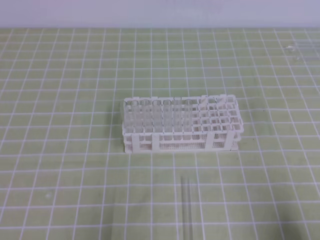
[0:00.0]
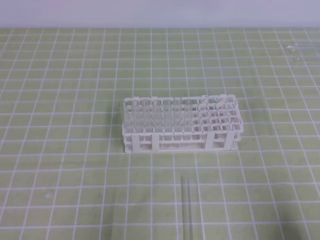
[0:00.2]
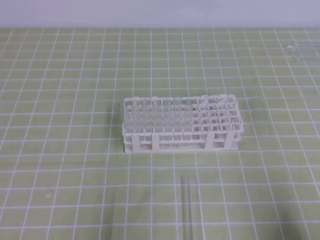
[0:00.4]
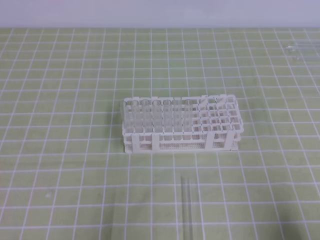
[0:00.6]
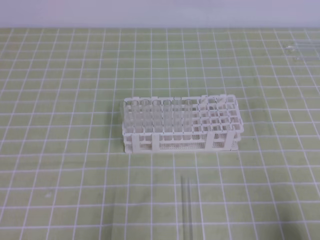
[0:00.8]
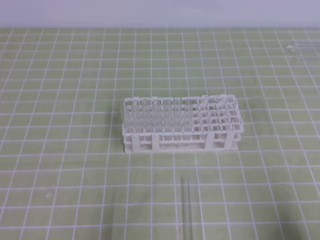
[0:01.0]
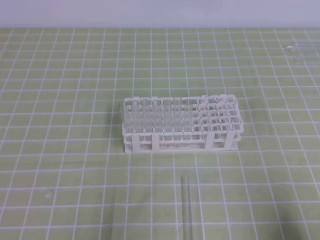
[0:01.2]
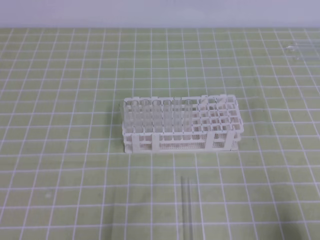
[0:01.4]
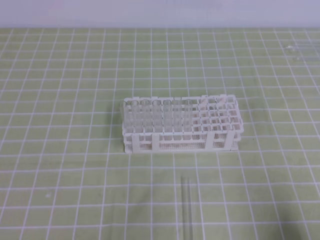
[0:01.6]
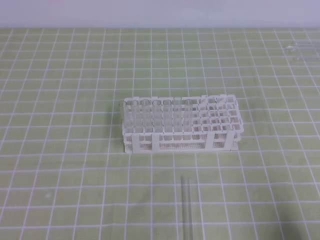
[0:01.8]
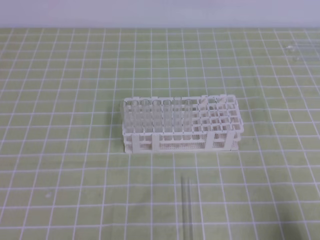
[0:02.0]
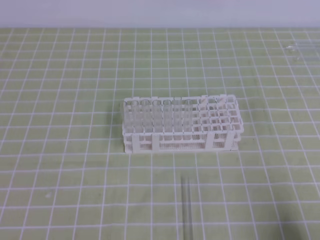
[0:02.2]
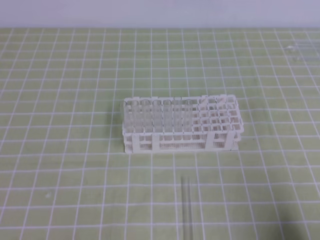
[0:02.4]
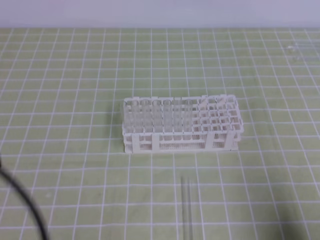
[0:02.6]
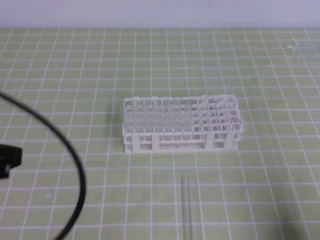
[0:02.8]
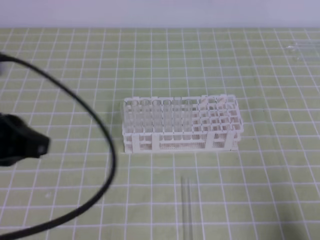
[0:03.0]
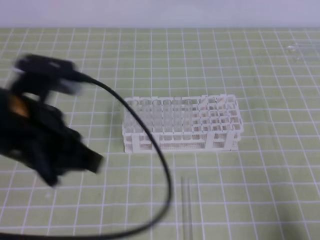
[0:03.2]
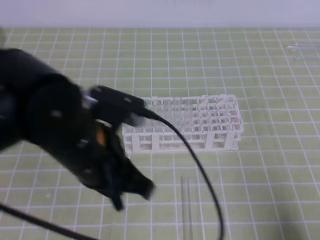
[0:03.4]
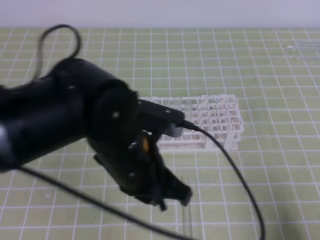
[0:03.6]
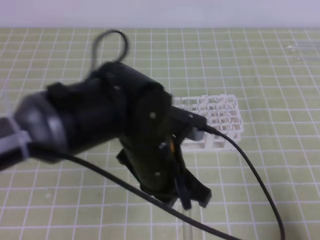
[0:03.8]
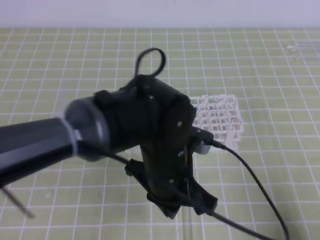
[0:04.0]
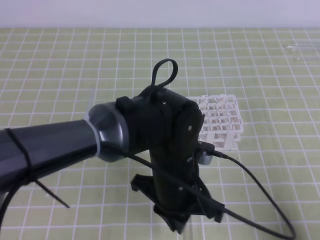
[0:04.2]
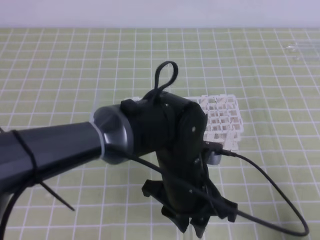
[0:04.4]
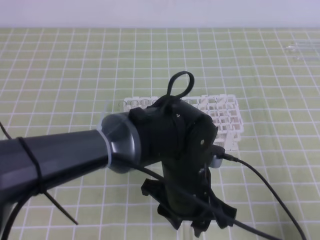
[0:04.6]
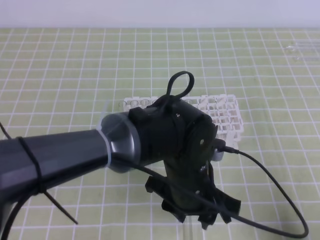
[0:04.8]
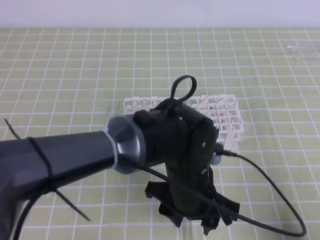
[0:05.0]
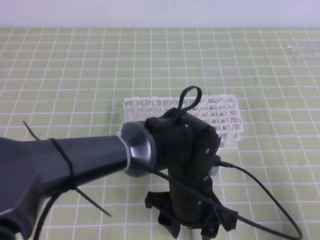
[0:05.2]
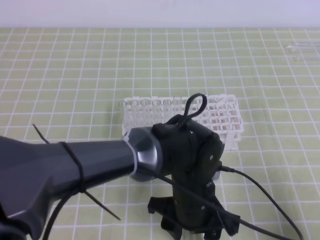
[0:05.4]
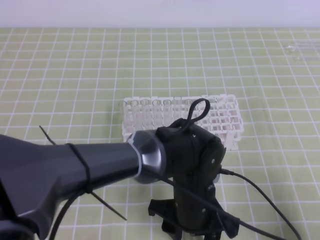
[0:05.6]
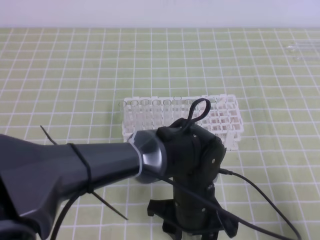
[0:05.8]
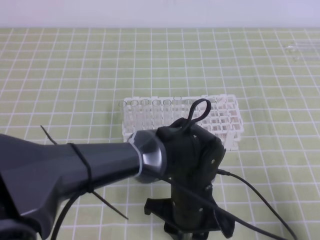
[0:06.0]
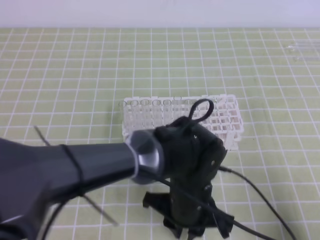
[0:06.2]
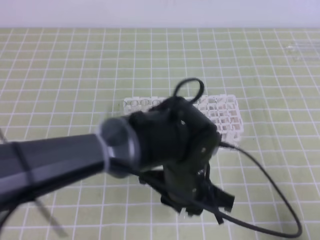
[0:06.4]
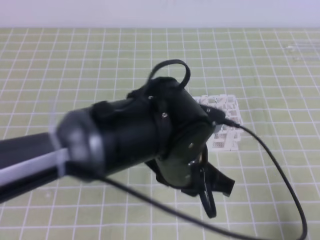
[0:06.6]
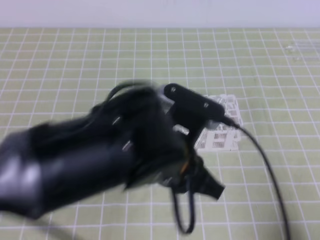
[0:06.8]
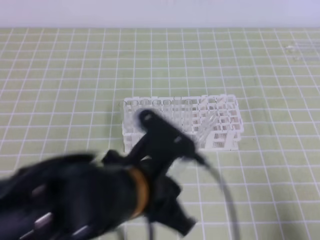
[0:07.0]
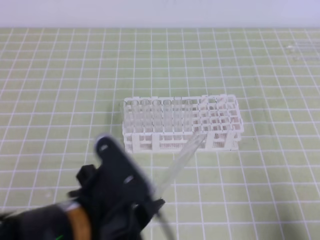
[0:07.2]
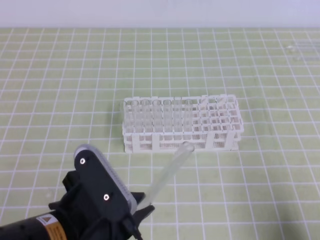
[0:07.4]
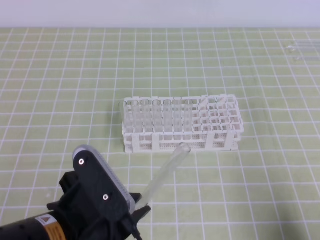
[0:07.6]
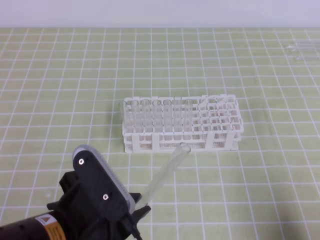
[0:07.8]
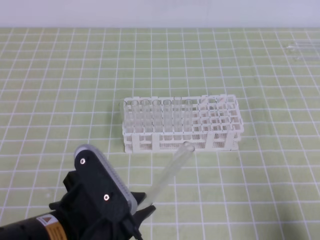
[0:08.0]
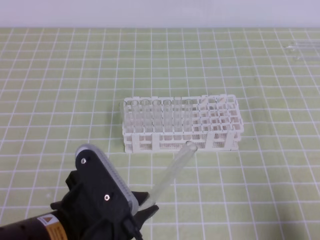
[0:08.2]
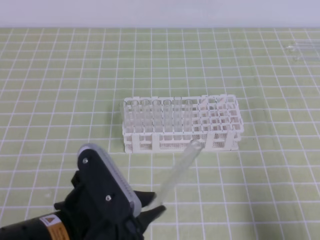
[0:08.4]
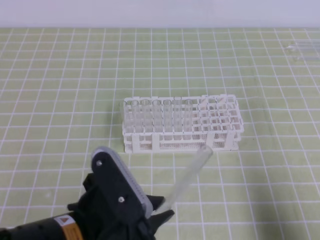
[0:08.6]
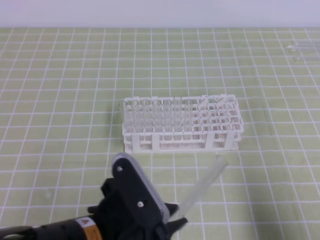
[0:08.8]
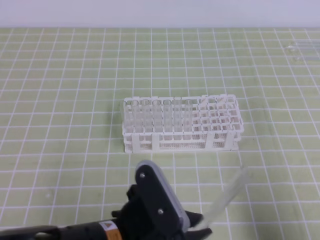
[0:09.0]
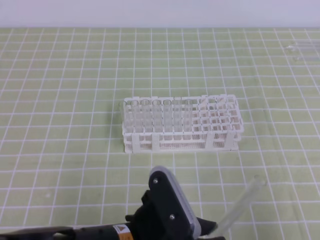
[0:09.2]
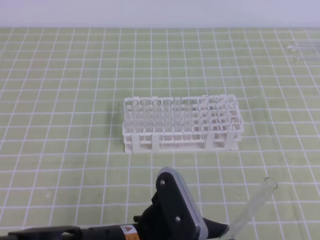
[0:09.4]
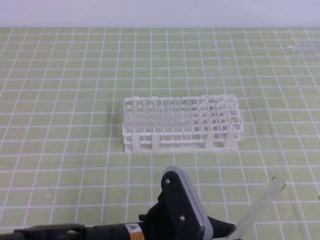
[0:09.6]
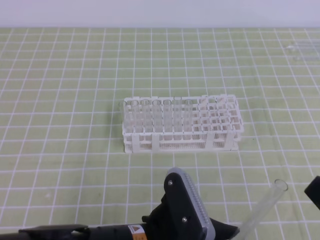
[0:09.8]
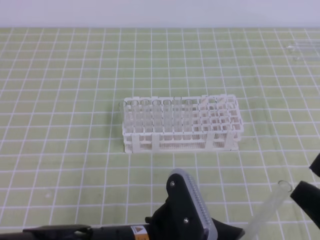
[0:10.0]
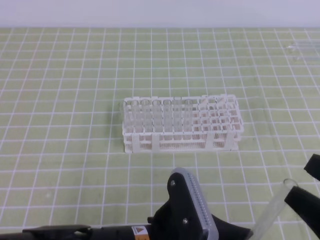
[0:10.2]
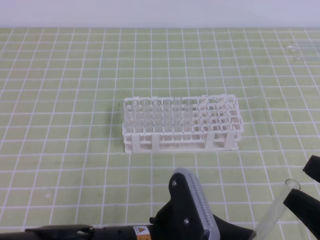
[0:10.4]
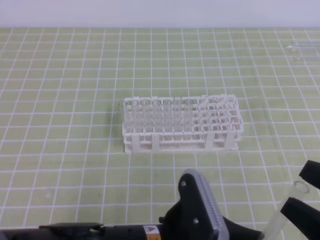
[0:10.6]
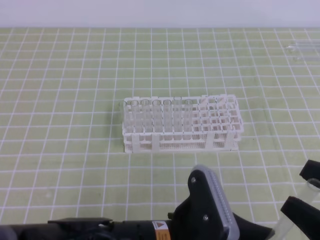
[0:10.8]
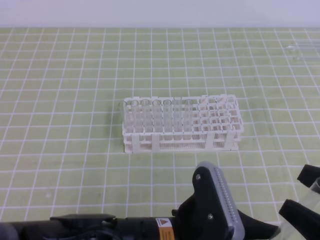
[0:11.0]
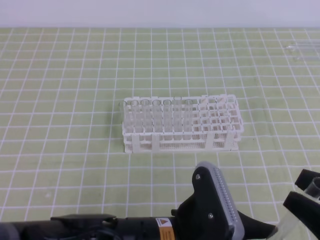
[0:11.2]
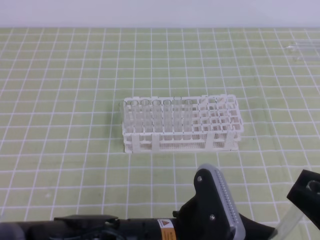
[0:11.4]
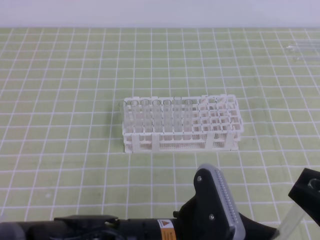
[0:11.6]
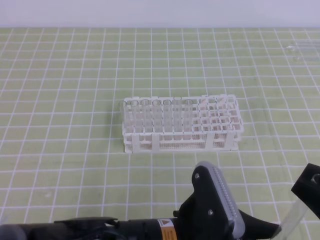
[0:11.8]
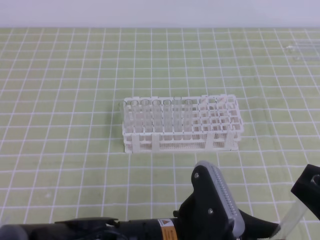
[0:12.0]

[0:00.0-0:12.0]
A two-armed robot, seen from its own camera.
0:01.6 to 0:03.0: The left gripper goes about 20 cm upward and forward.
0:03.0 to 0:04.4: The left gripper moves to the right and downward, about 30 cm.
0:04.4 to 0:06.0: The left gripper travels downward by roughly 5 cm, and opens, then closes once more.
0:06.0 to 0:07.6: The left gripper goes some 20 cm to the left, upward and backward.
0:09.0 to 0:10.4: The right gripper travels upward and to the left by some 10 cm, and opens. Meanwhile the left gripper moves roughly 5 cm.
0:10.4 to 0:12.0: The right gripper closes.

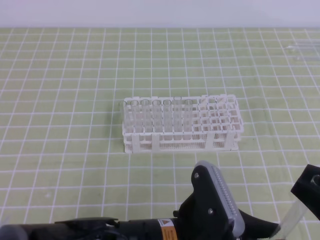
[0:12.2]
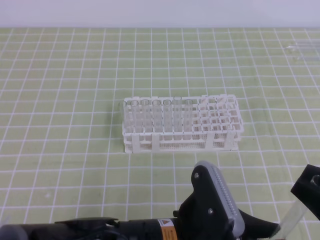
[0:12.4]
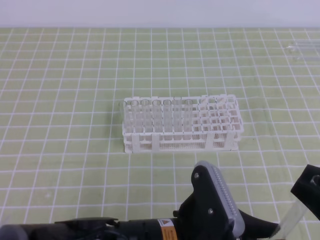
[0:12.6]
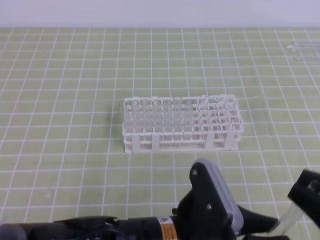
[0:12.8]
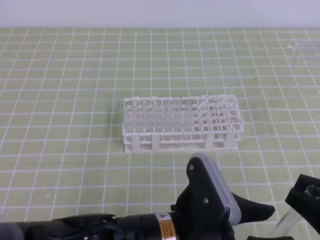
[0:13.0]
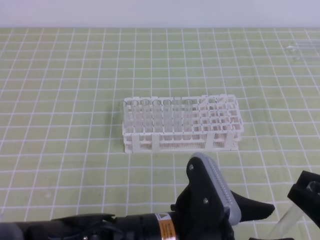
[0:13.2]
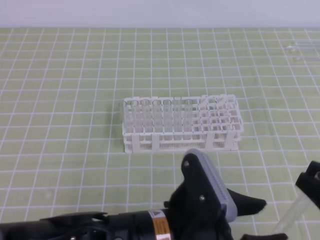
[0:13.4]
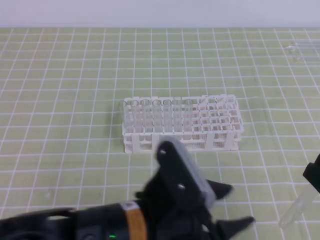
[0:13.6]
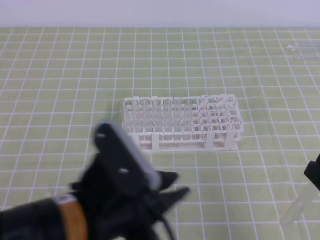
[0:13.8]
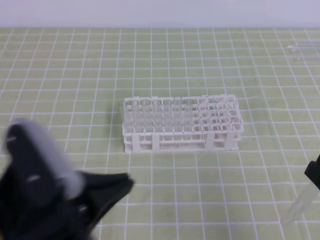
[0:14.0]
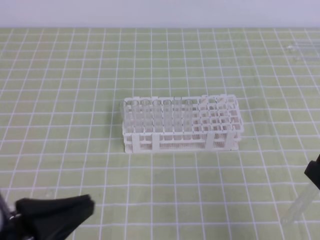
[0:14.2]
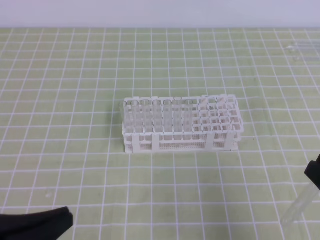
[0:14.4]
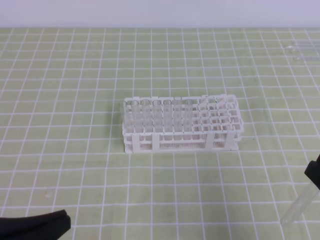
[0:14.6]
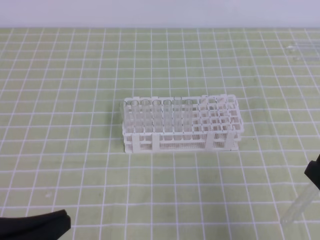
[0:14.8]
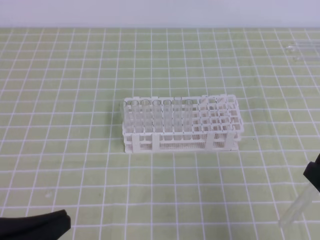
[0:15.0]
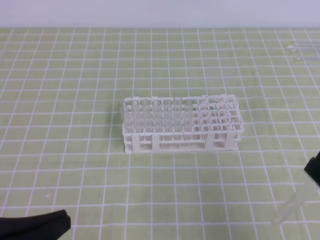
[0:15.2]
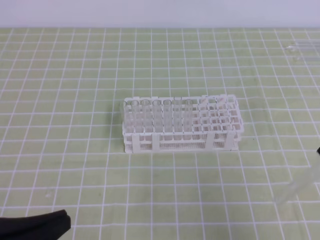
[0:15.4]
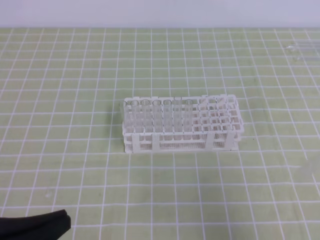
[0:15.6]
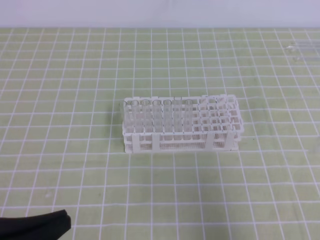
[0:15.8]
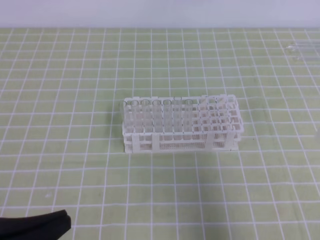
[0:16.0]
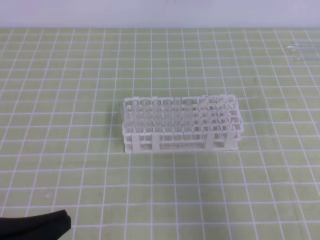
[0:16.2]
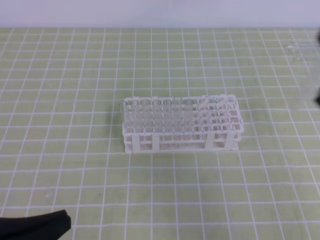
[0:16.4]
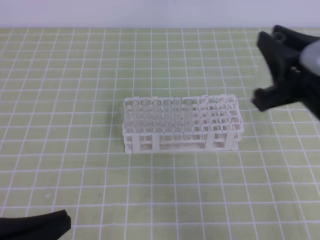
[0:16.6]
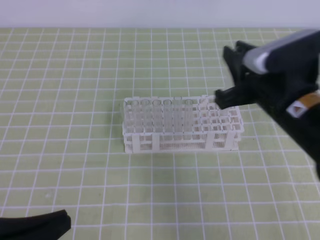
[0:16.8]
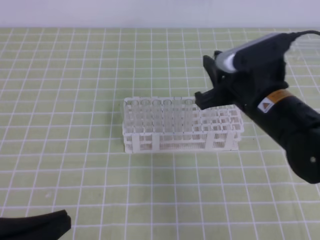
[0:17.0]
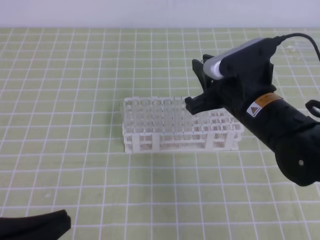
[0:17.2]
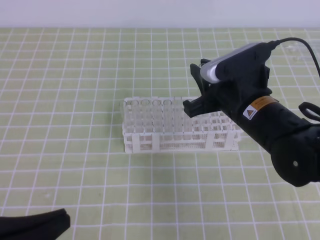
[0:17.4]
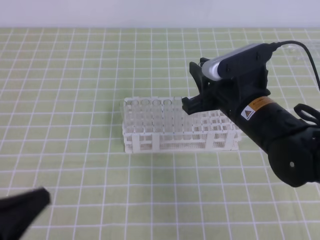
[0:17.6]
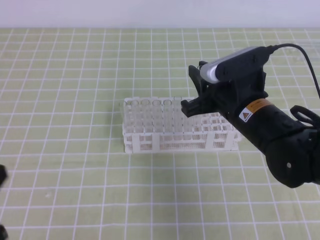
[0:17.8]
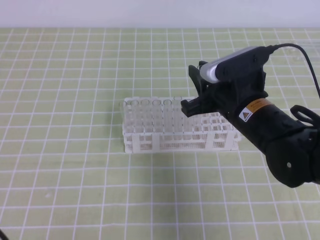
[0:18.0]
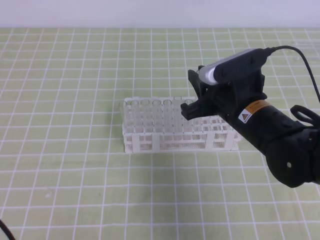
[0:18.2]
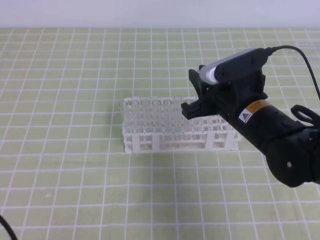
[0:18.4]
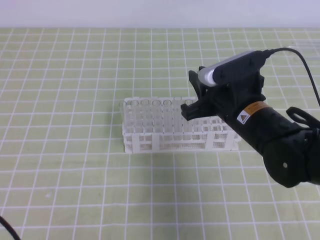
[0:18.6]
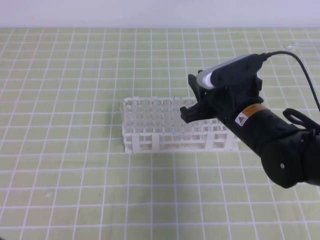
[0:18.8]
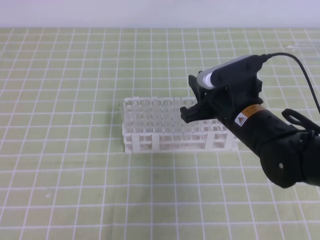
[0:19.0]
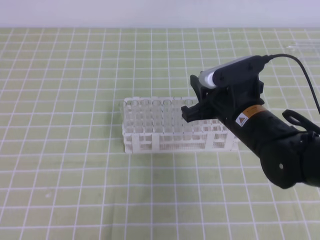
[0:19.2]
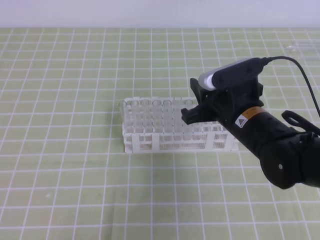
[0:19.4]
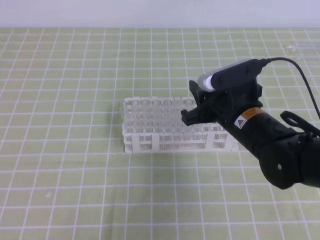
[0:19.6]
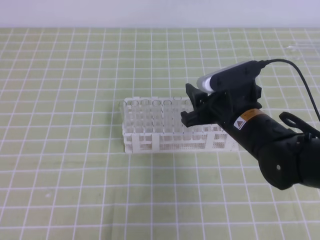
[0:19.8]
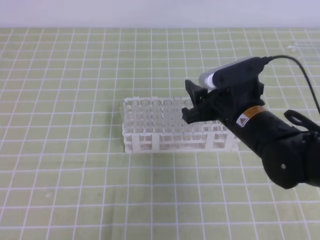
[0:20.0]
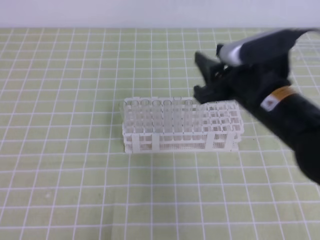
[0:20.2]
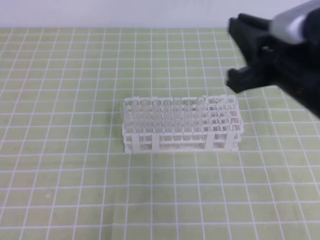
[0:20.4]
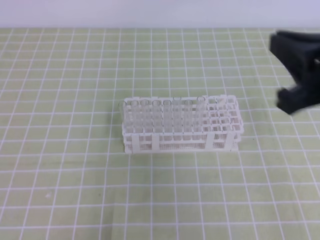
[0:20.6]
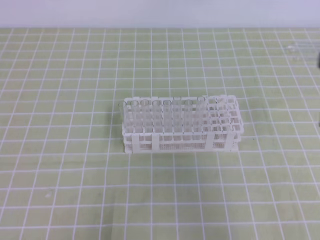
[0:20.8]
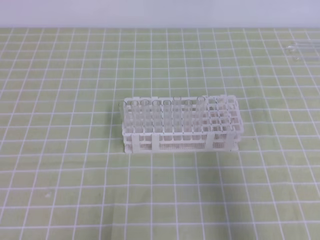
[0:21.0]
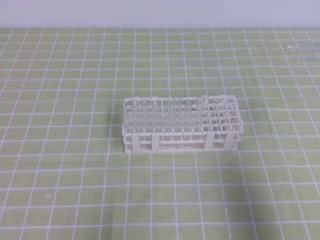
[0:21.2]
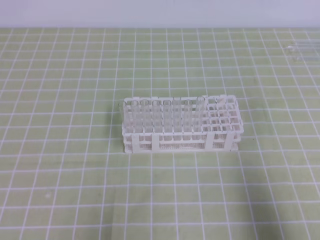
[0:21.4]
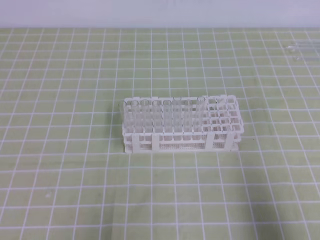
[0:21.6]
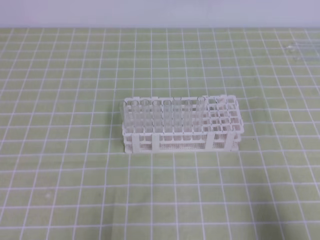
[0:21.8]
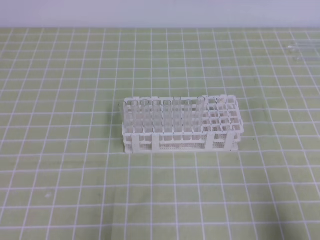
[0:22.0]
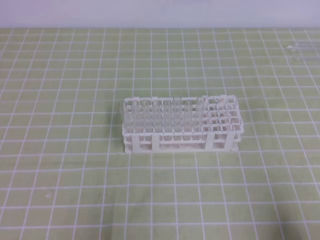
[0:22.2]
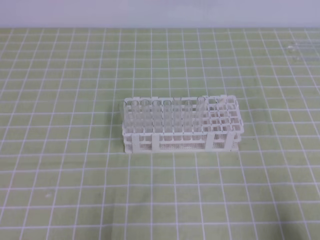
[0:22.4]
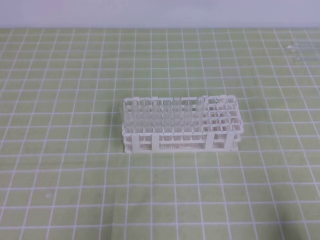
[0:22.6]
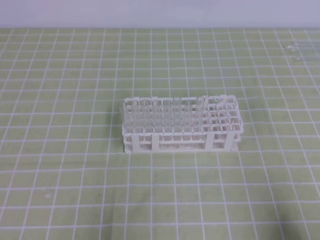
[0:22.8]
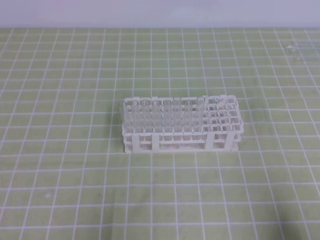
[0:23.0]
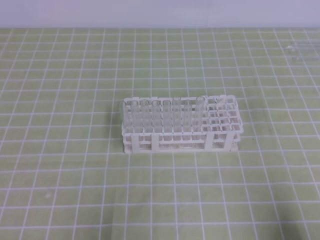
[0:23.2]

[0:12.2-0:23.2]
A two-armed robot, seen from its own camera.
0:12.2 to 0:13.8: The left gripper goes about 5 cm to the left, and opens up.
0:13.8 to 0:15.4: The left gripper is displaced to the left by approximately 15 cm, and closes its fingers.
0:15.4 to 0:17.0: The right gripper goes approximately 20 cm forward and to the left.
0:17.0 to 0:18.4: The right gripper moves approximately 5 cm; the left gripper shifts some 5 cm to the left.
0:18.4 to 0:20.0: The left gripper heads downward, covering roughly 10 cm; the right gripper opens its fingers.
0:20.0 to 0:21.6: The right gripper shifts some 30 cm backward and to the right, and closes.
0:21.6 to 0:23.2: The right gripper goes approximately 5 cm downward.
